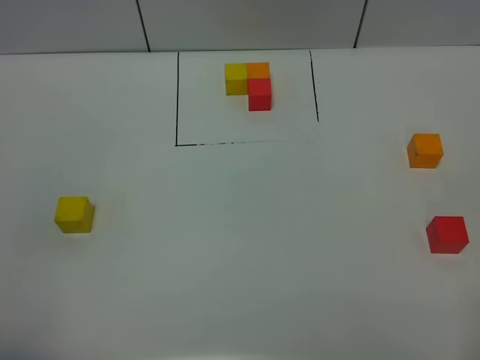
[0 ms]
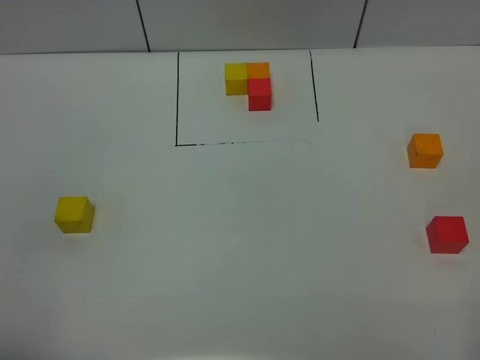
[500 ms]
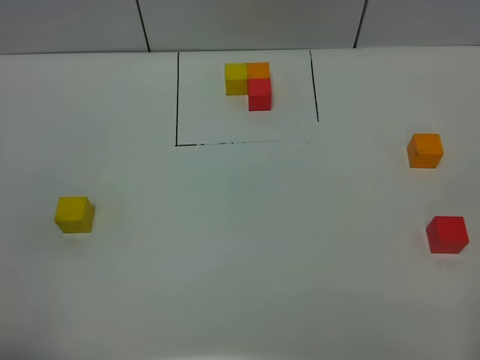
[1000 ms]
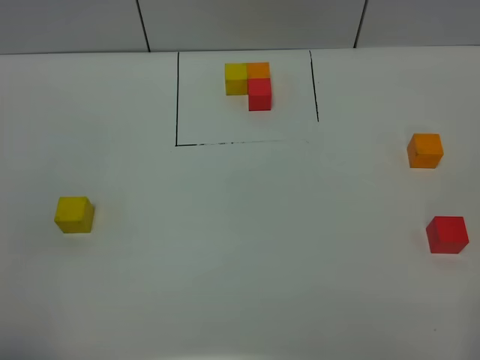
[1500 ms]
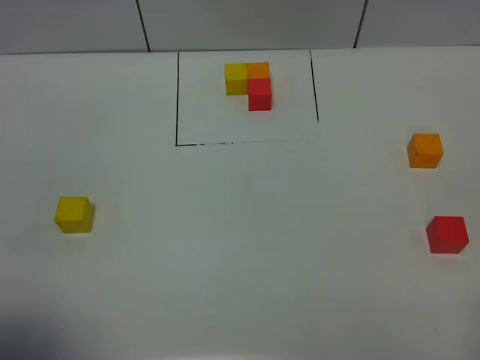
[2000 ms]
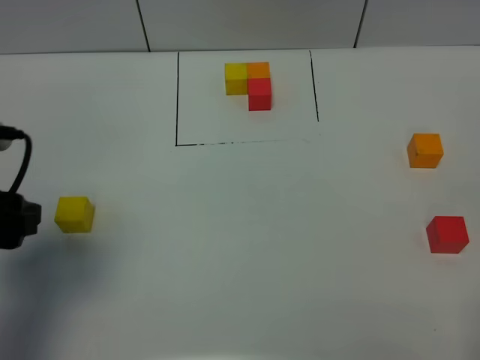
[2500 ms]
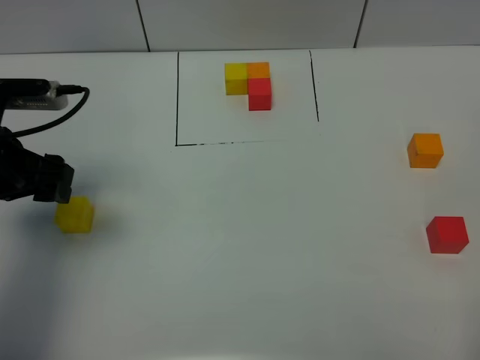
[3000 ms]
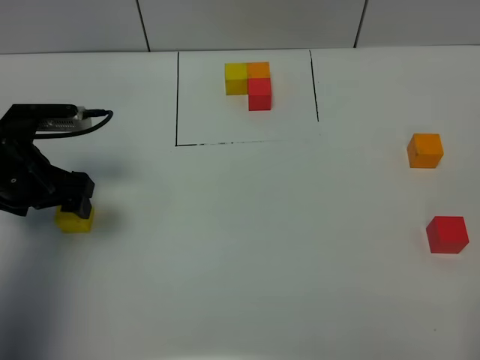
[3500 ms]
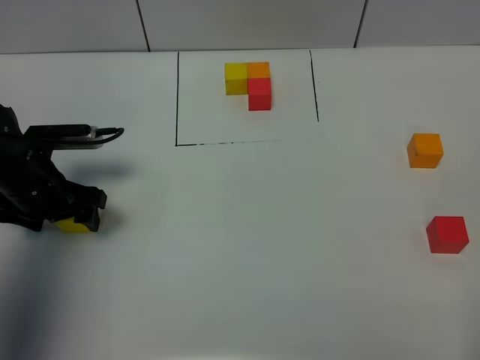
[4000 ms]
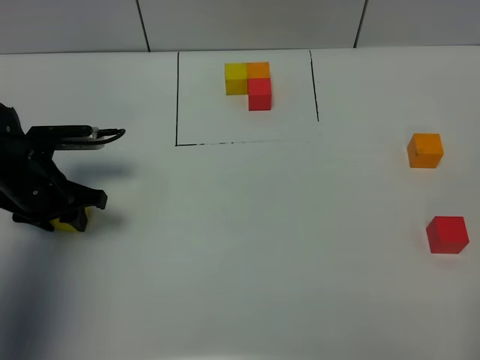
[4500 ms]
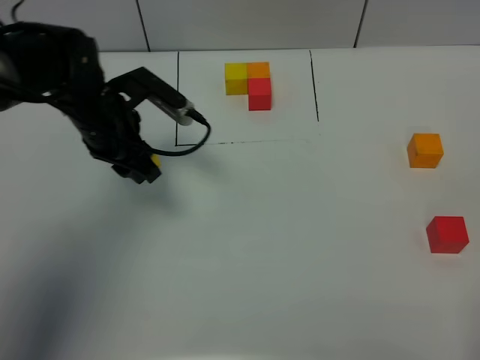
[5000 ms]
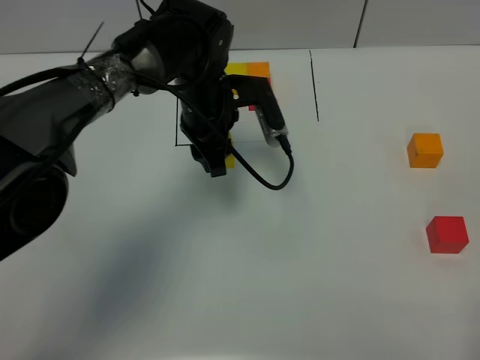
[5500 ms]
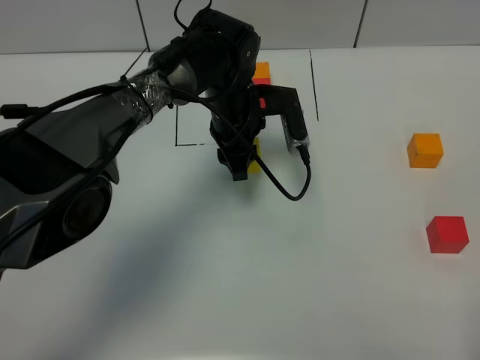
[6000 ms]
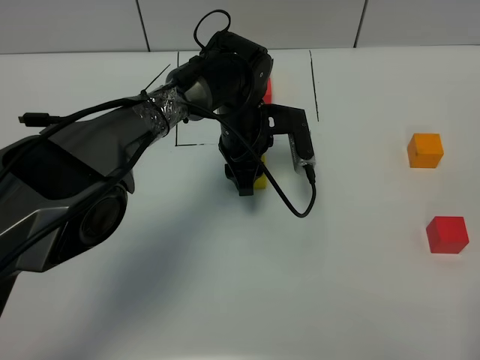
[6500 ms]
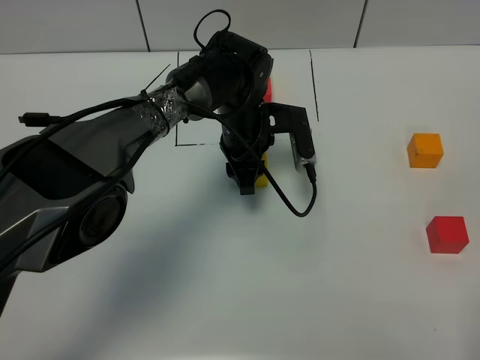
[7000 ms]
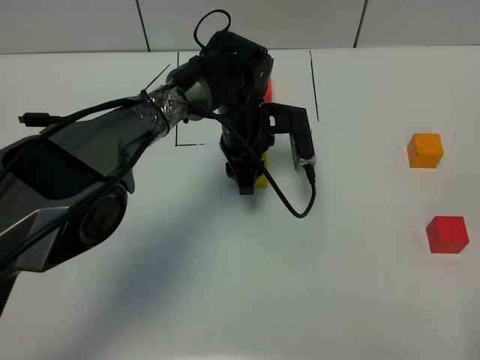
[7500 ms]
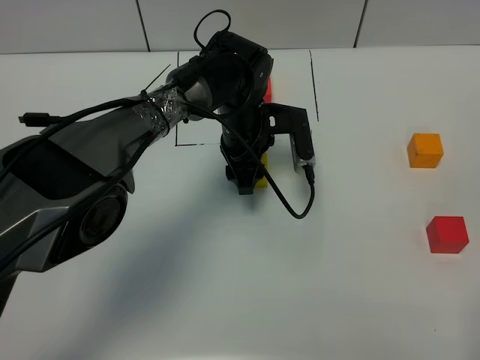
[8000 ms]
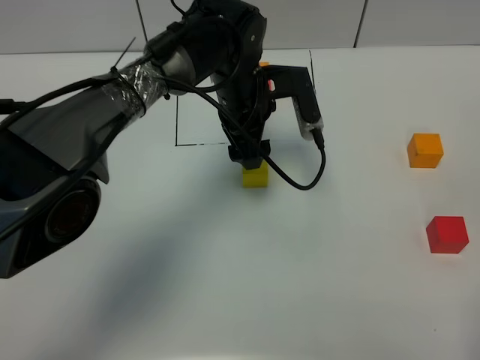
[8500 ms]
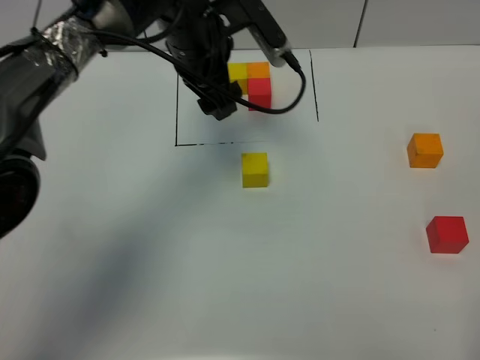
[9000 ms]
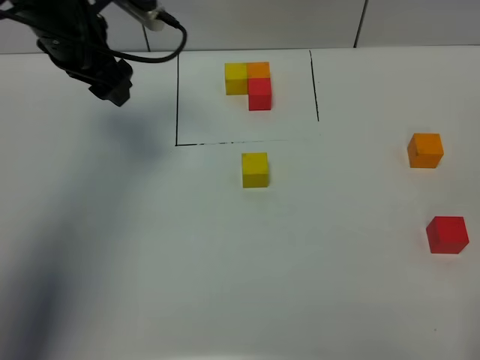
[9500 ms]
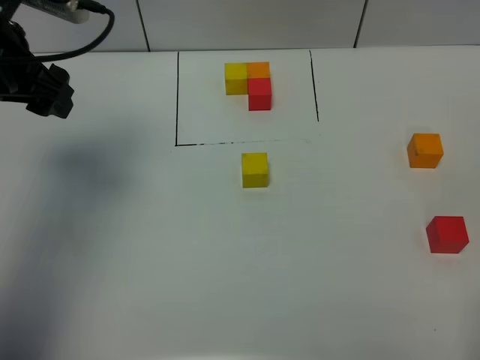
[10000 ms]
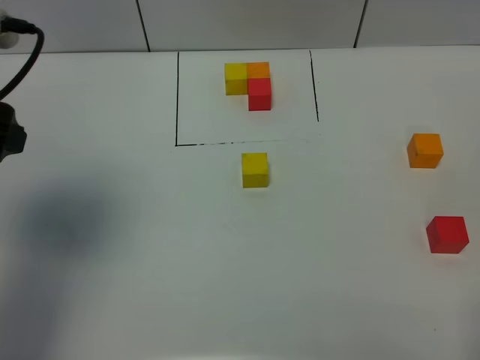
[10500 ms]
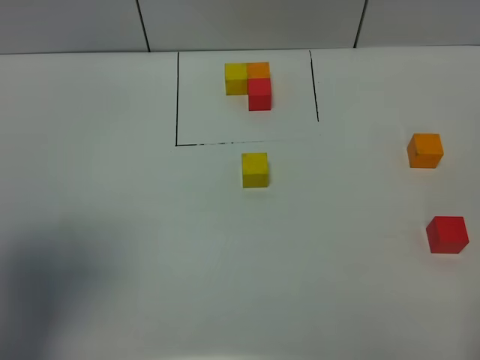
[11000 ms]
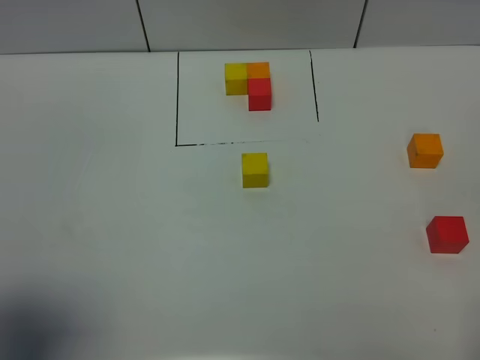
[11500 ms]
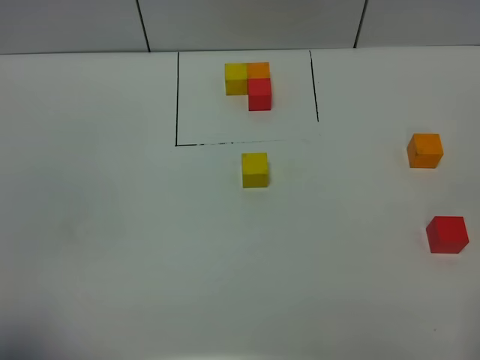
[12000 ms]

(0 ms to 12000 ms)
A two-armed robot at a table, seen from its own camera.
Task of the whole recording: According to the building block template in front, assemble the scattered blocks together.
Step, 0 ms - 8000 ms: Put the yellow build block in the center of the table.
0 ms - 2000 ms: There are only small adjustments of the grippers.
2000 ms - 4000 ms: The left gripper travels forward and downward by approximately 30 cm.
4000 ms - 6000 ms: The left gripper heads to the right and forward, covering roughly 30 cm, and closes its fingers.
6000 ms - 8000 ms: The left gripper opens its fingers.
8000 ms - 10000 ms: The left gripper goes about 30 cm to the left and upward, and opens.
10000 ms - 12000 ms: The left gripper shifts roughly 30 cm backward.

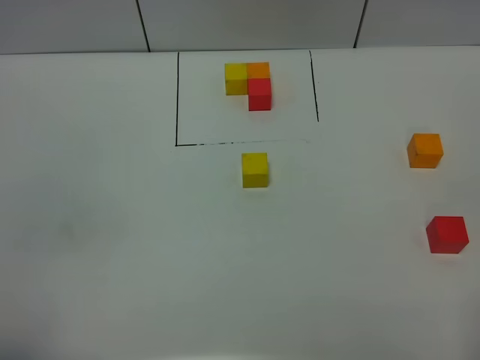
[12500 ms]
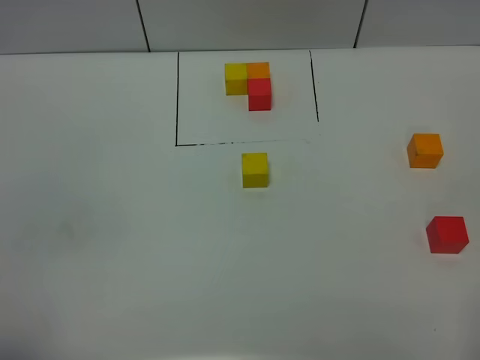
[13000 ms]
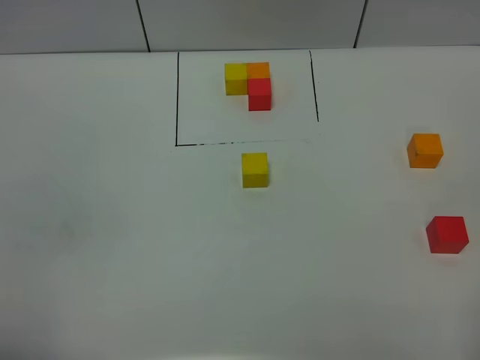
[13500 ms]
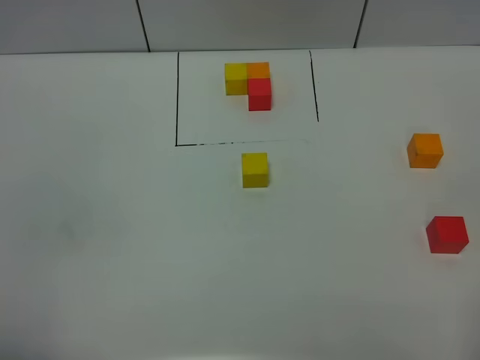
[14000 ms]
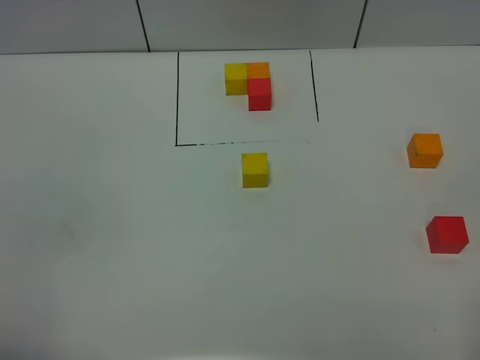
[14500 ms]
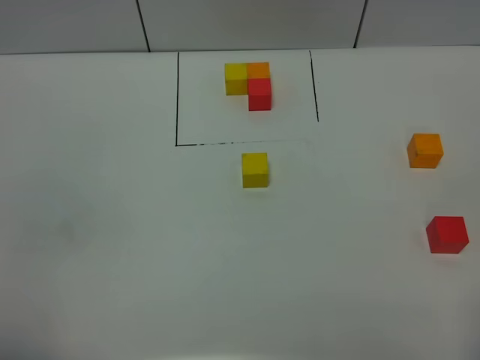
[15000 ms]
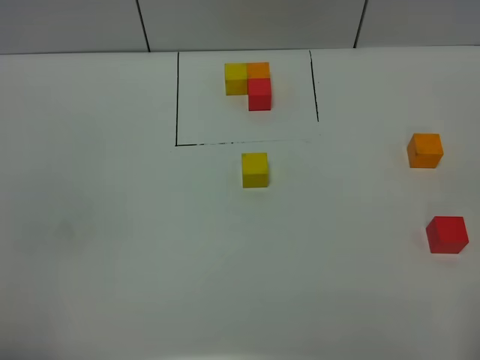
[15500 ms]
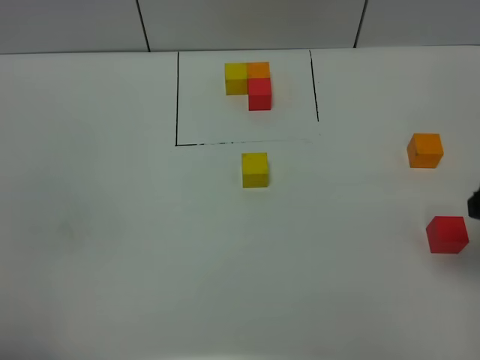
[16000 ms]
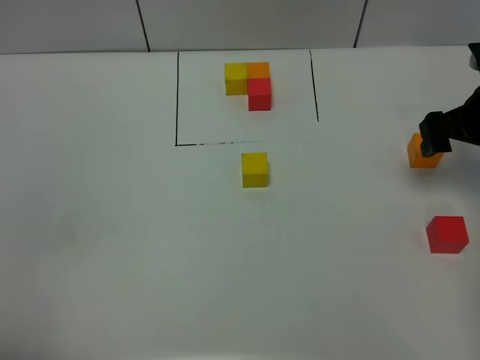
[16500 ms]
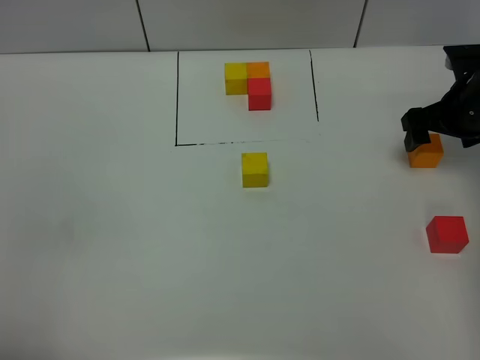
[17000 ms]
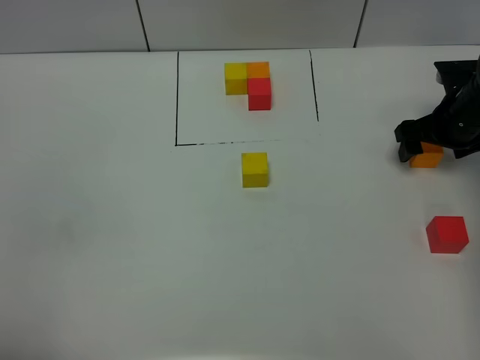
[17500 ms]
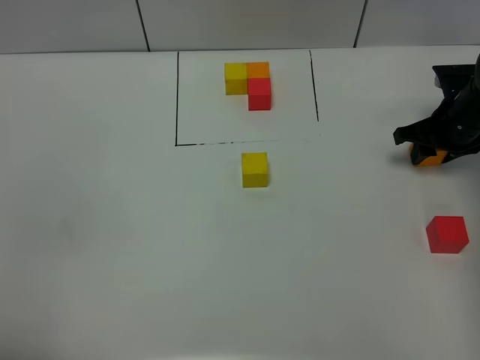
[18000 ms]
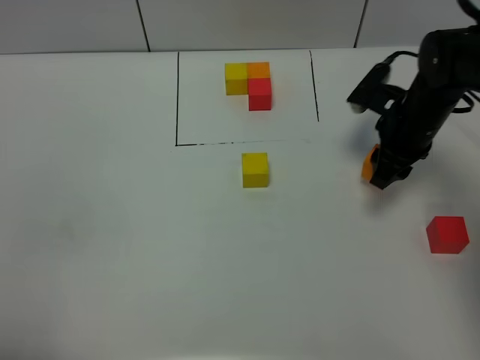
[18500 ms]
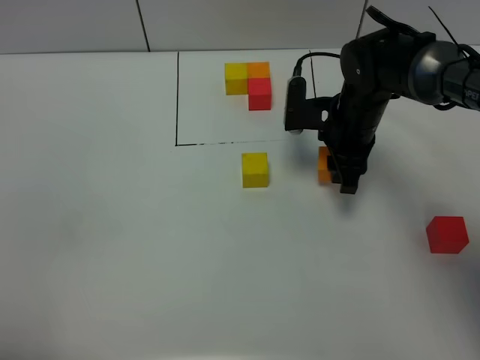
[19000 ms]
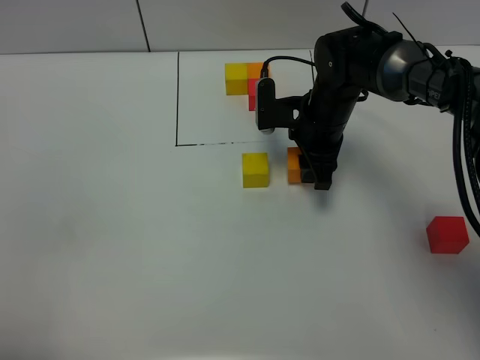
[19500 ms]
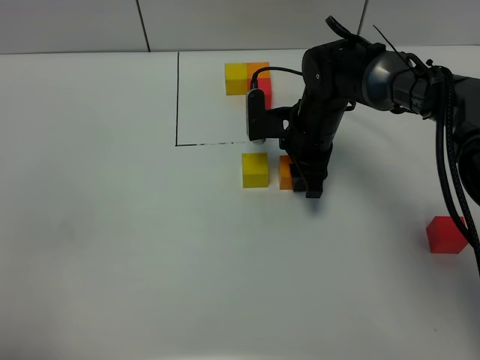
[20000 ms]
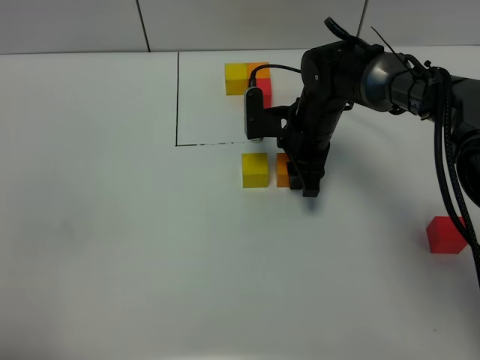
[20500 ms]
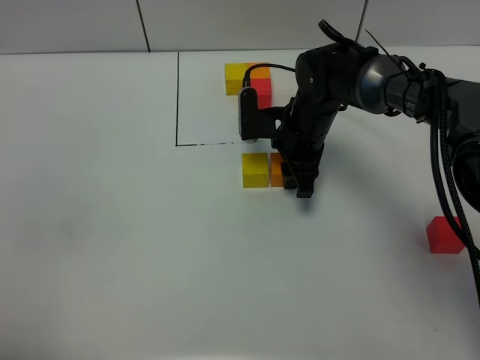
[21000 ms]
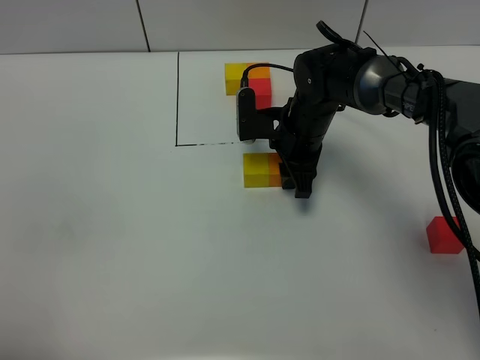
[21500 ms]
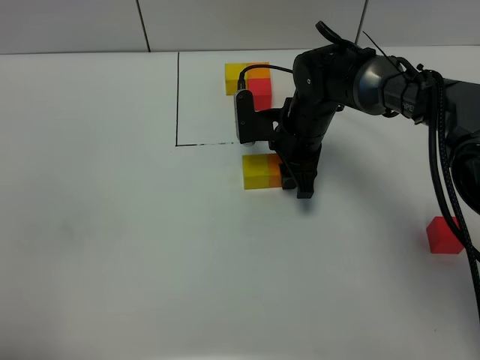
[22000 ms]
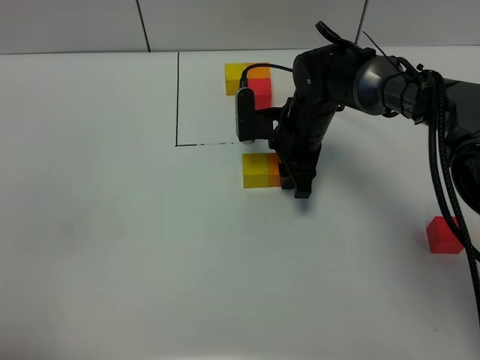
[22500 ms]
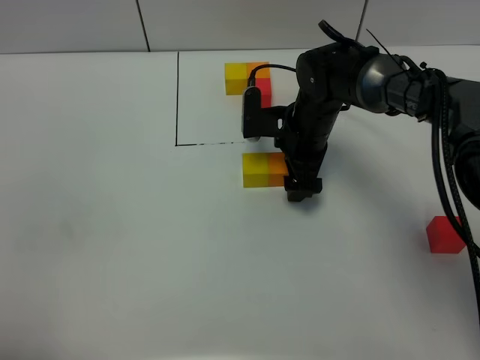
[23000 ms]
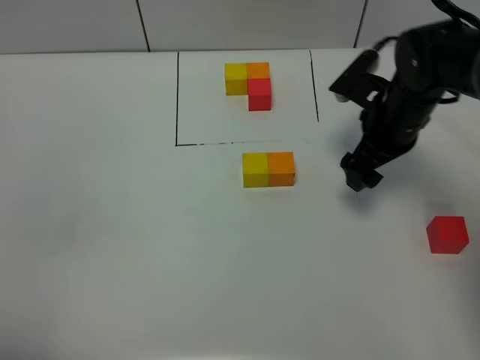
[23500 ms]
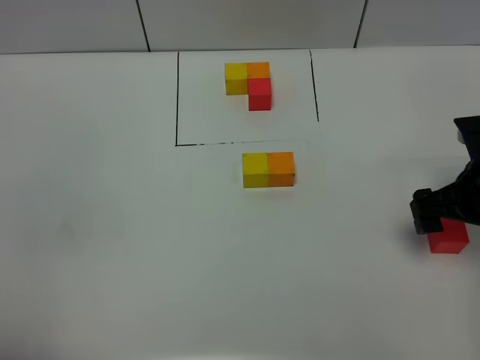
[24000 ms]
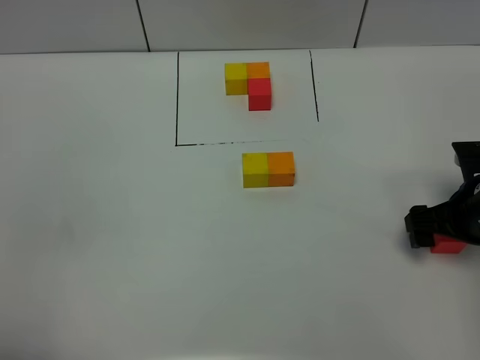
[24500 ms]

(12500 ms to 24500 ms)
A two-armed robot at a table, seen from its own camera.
Task of the whole recording: According to the building block template in front, assemble the scattered blocks together.
Step, 12500 ms - 22500 ms: Put the orange build block on the right of the yellow build block.
14500 ms - 16500 ms: The right gripper shifts roughly 35 cm forward.
16500 ms - 18500 ms: The right gripper moves to the left, about 10 cm, and closes its fingers.
18500 ms - 20500 ms: The right gripper goes some 10 cm to the left.
20500 ms - 22500 ms: Both grippers stay about where they are.
22500 ms - 24500 ms: The right gripper heads to the right and backward, covering some 25 cm, and opens up.

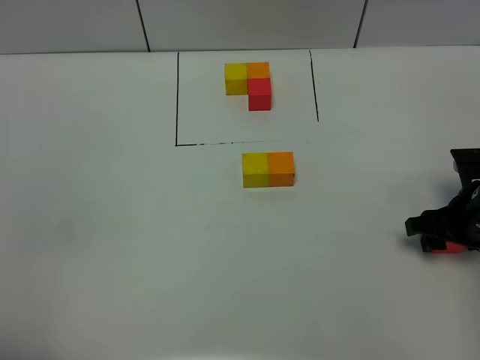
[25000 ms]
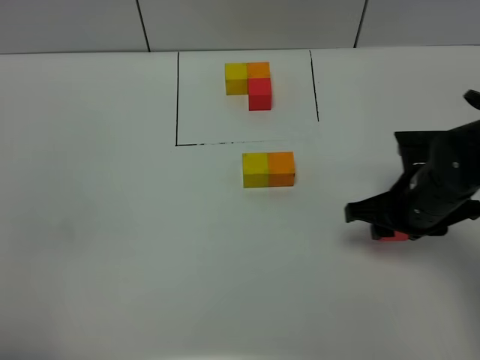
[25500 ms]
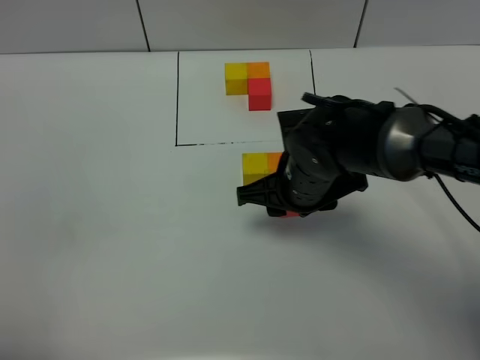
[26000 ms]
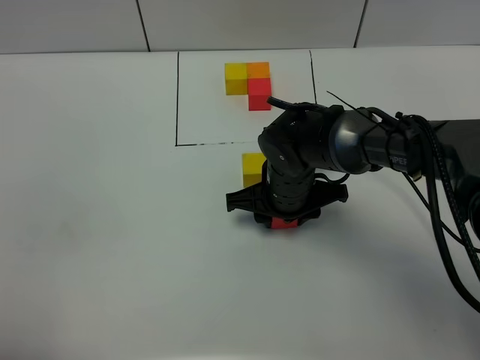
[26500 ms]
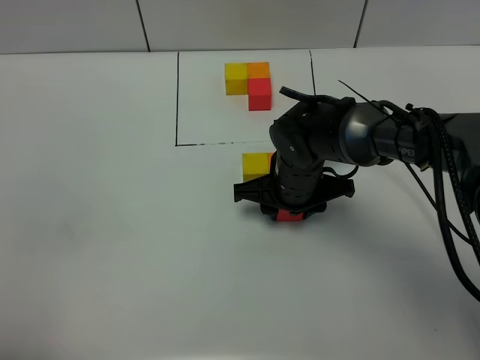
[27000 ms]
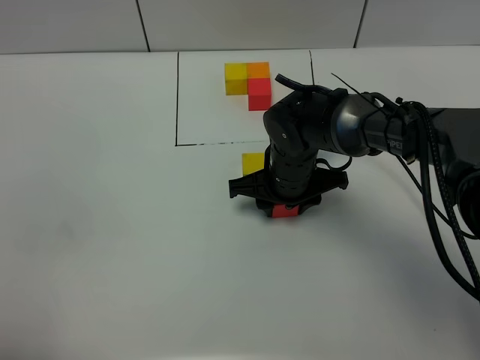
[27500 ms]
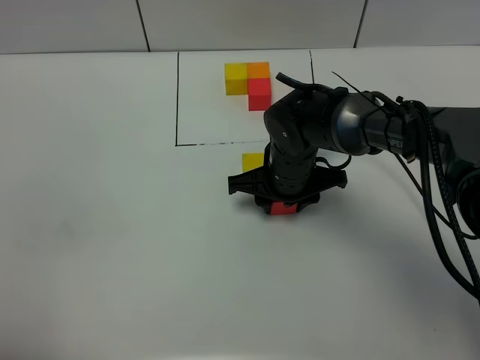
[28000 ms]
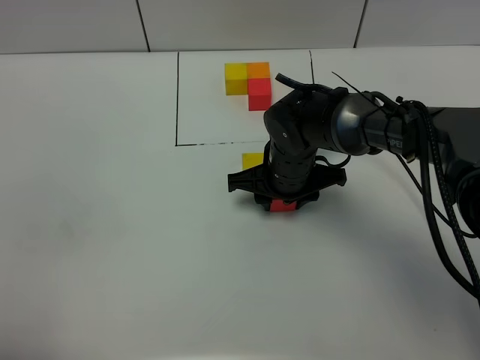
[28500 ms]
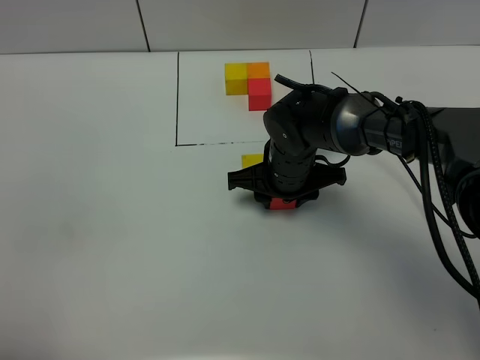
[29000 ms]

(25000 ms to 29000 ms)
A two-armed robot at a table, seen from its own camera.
Task of the whole recording: According to the building block template in front, assemble the scattered blocks together.
25000 ms - 27000 ms: The right gripper is displaced to the left by roughly 25 cm.
27000 ms - 29000 ms: The grippers move only a little.
